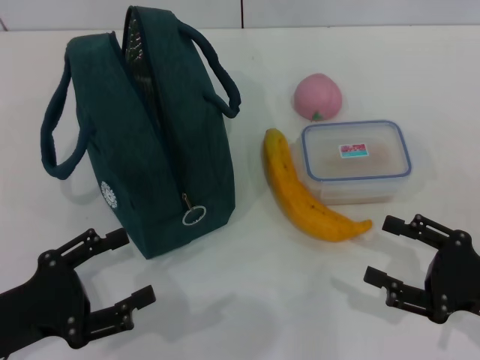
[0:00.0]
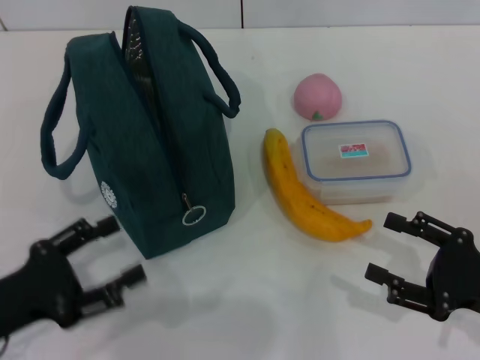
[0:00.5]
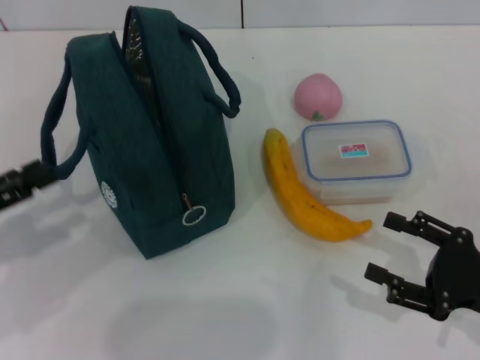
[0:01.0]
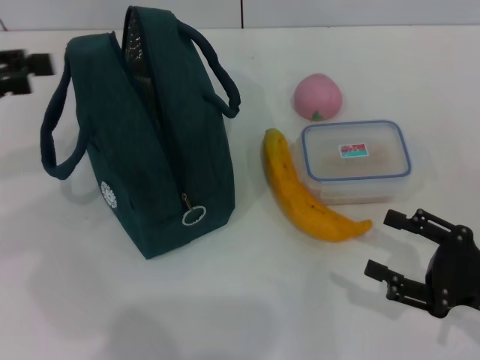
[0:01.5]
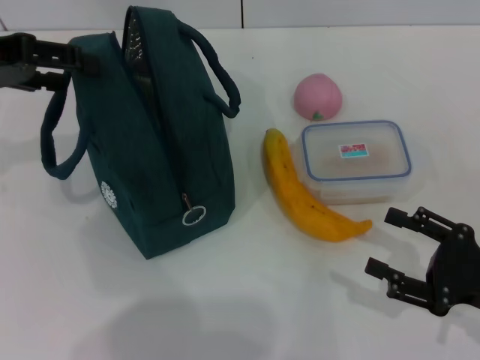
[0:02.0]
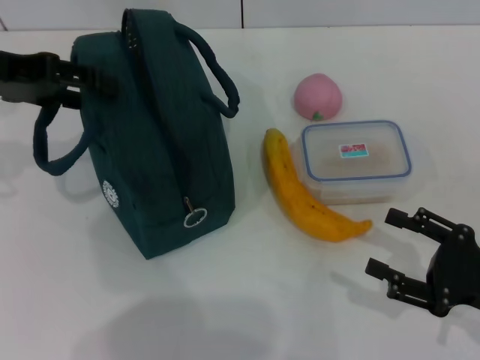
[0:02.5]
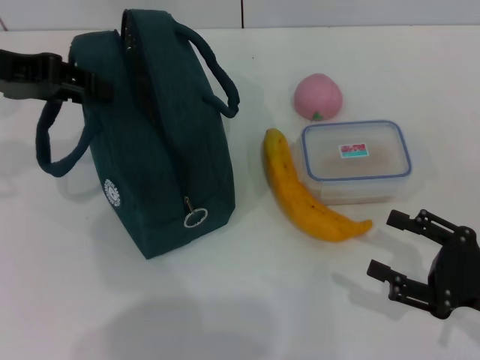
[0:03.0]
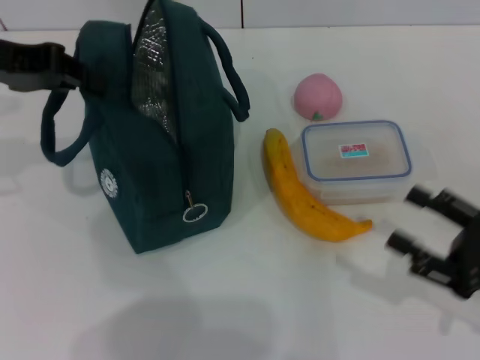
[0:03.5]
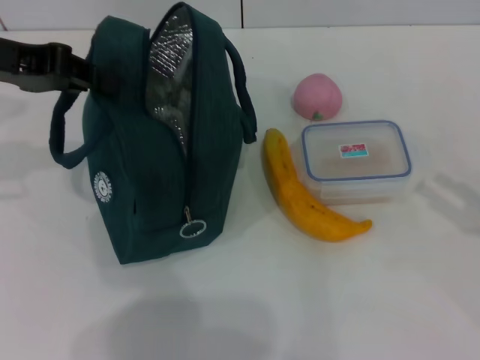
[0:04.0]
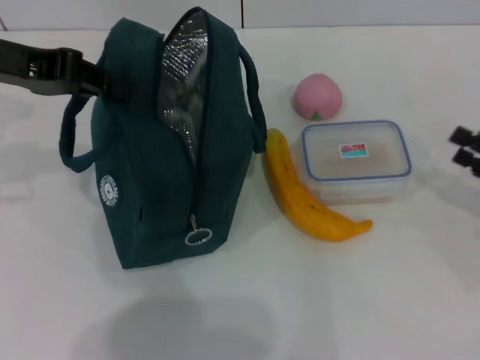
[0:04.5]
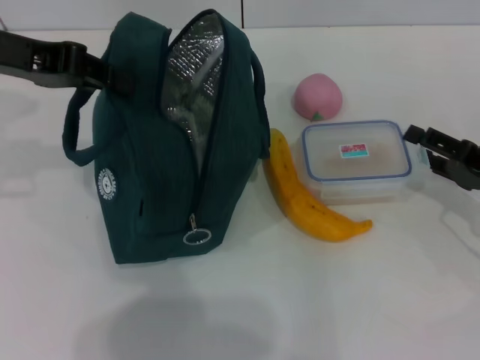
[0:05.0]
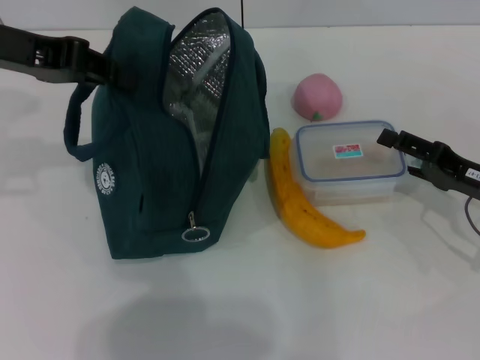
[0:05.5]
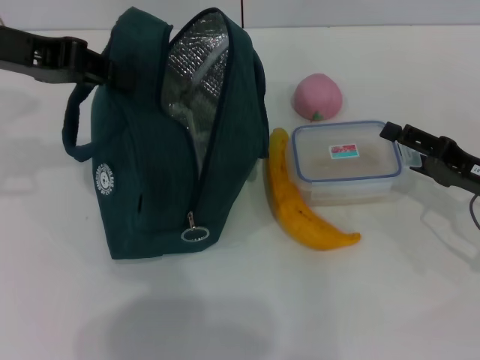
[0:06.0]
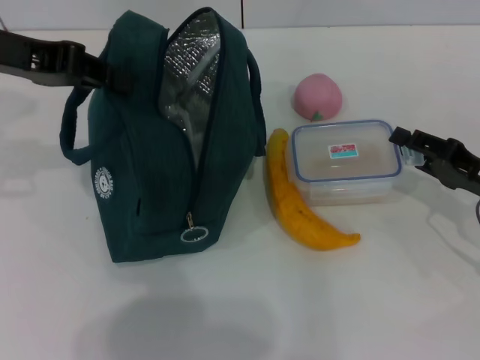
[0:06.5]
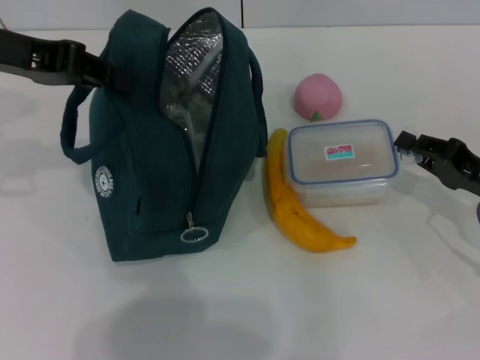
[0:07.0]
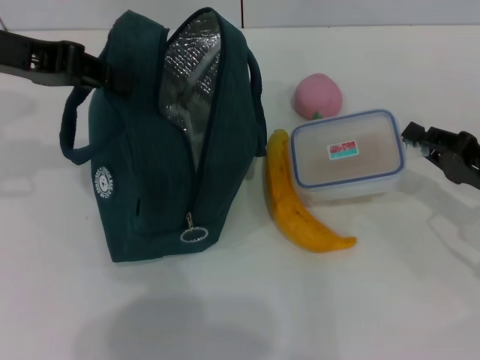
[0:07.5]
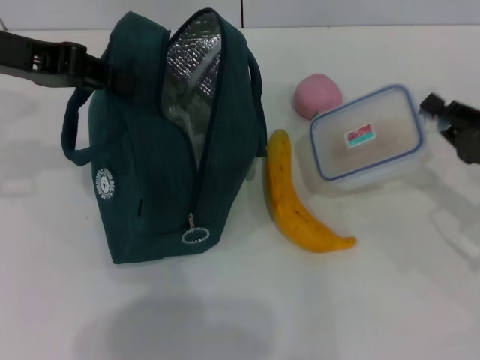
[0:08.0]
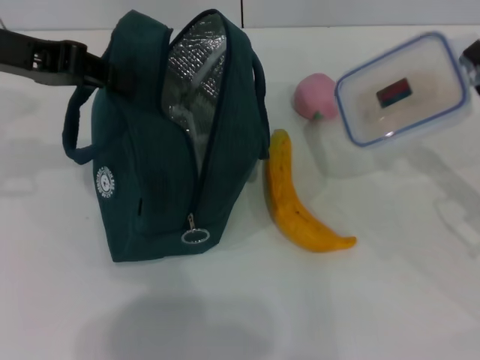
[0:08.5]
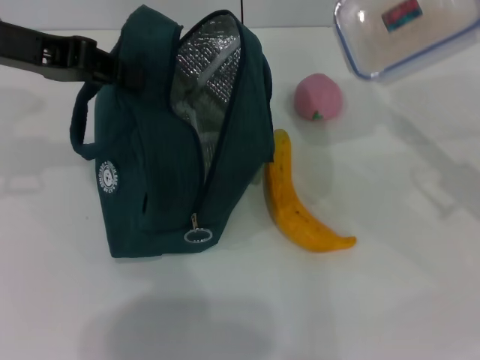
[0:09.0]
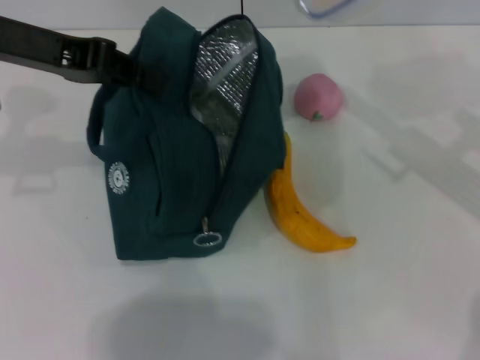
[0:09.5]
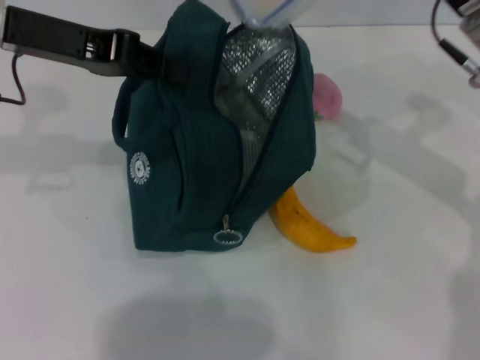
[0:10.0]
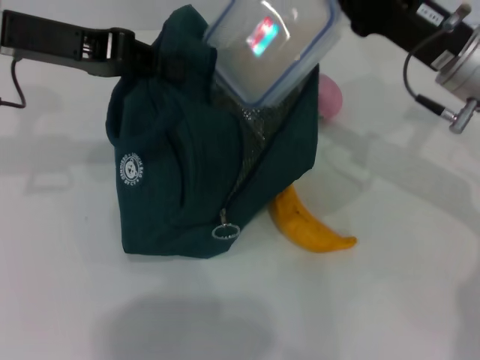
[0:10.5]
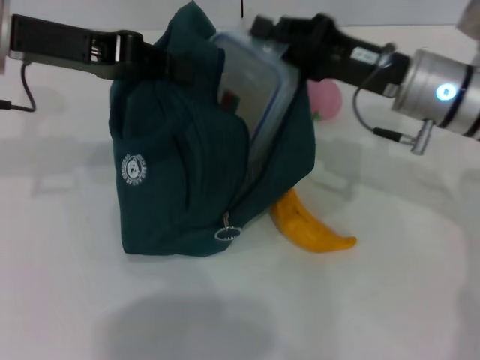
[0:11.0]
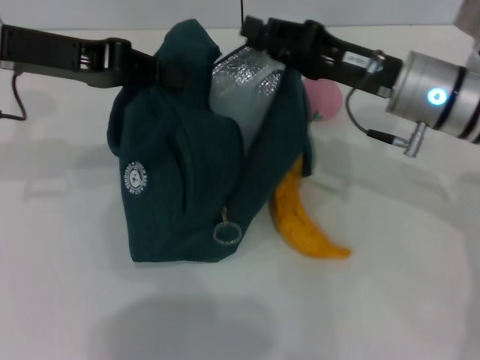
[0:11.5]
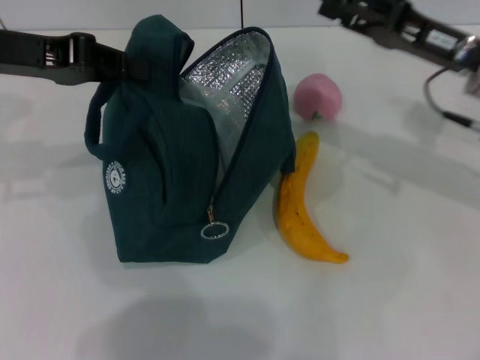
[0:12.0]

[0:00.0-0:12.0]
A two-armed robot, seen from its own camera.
Step, 0:00.0 to 0:03.0: Hold the lunch bag with your left hand.
Step, 0:03.5 to 0:06.5: Pick up the lunch box with your right hand.
Step, 0:07.0 to 0:11.5: Place the lunch box into the lunch bag with your right hand.
0:00.0 to 0:02.0: The left gripper travels upward and forward by roughly 25 cm.
0:02.0 to 0:04.0: The left gripper closes its fingers. The right gripper travels to the right by roughly 10 cm.
0:04.0 to 0:06.0: The right gripper travels forward and to the left by about 10 cm.
0:06.0 to 0:08.0: The right gripper closes its fingers.
0:08.0 to 0:10.0: The right gripper travels upward, to the left and forward by roughly 20 cm.
0:10.0 to 0:12.0: The right gripper opens its fingers.

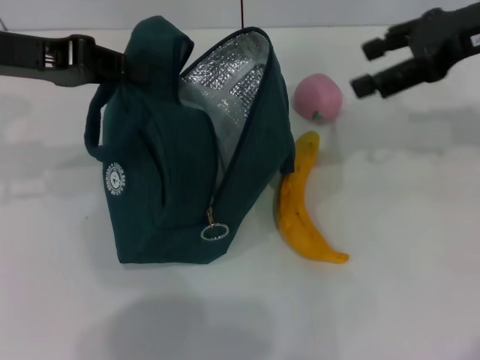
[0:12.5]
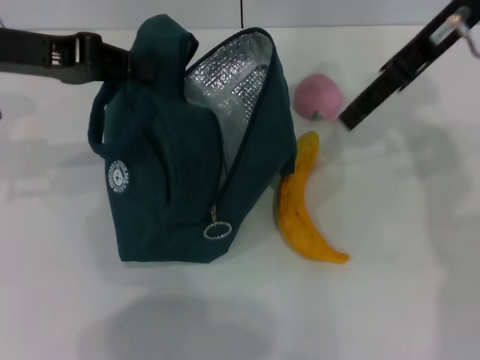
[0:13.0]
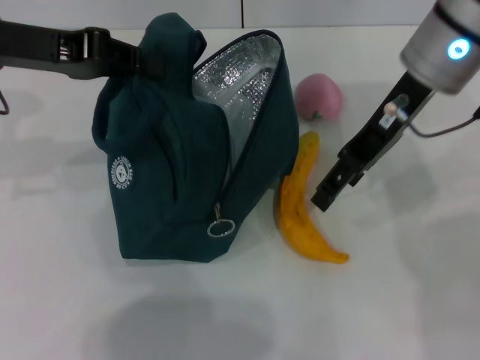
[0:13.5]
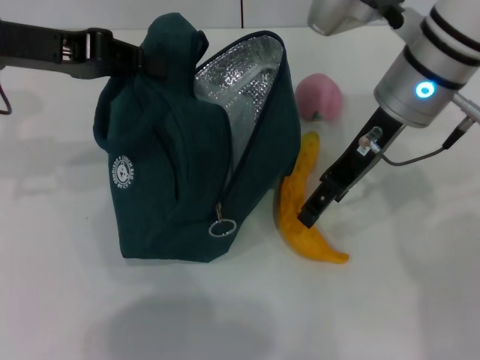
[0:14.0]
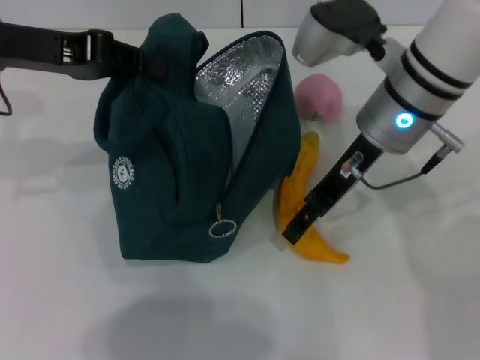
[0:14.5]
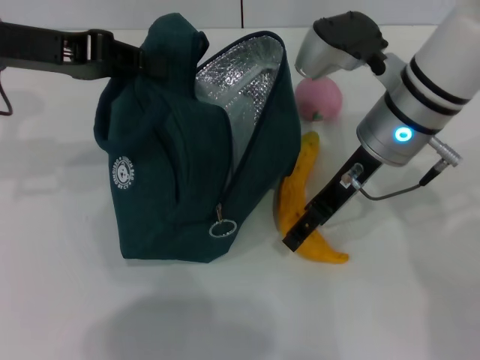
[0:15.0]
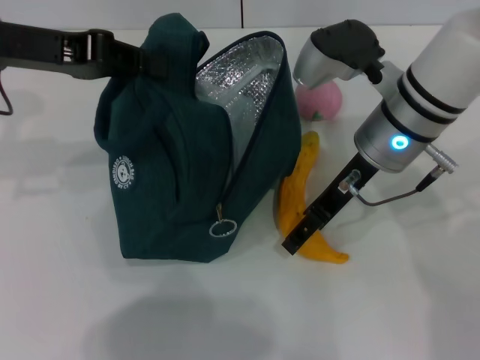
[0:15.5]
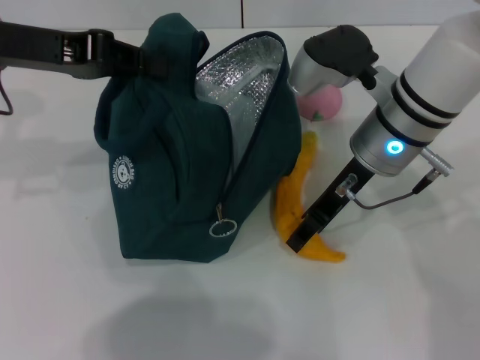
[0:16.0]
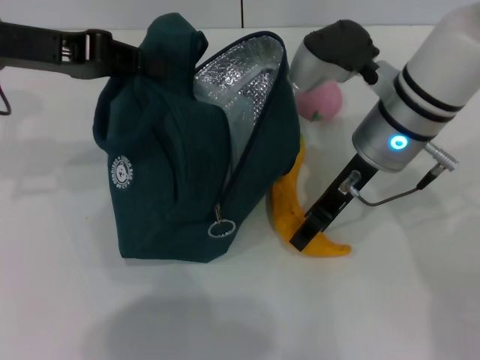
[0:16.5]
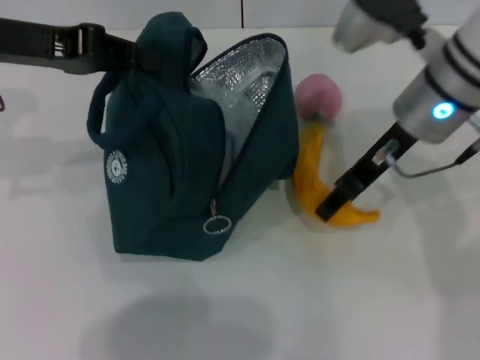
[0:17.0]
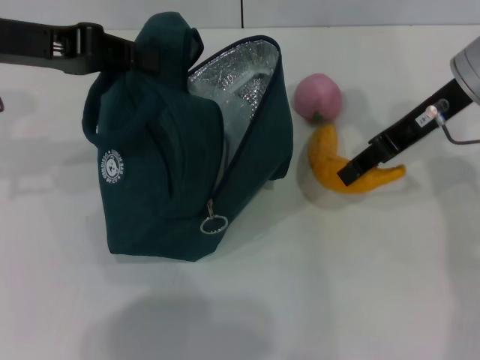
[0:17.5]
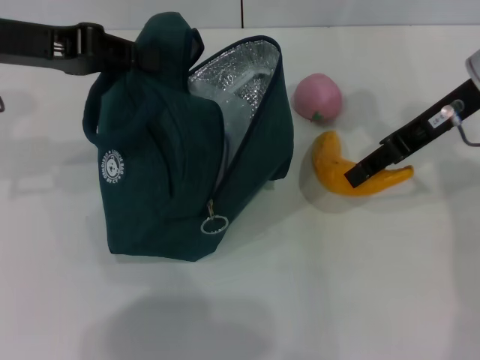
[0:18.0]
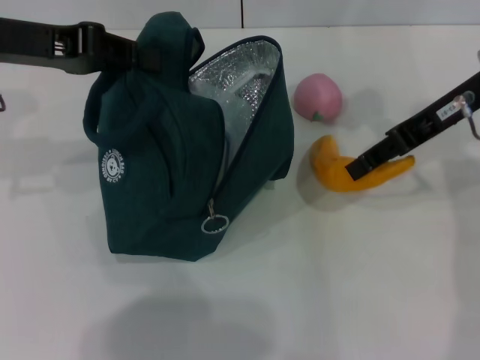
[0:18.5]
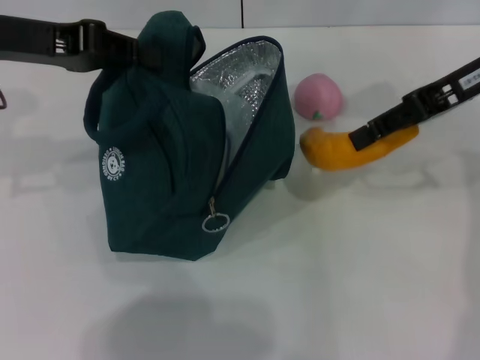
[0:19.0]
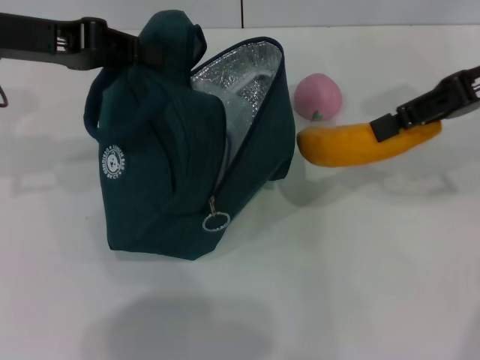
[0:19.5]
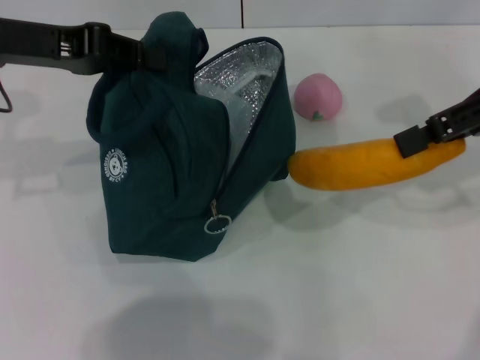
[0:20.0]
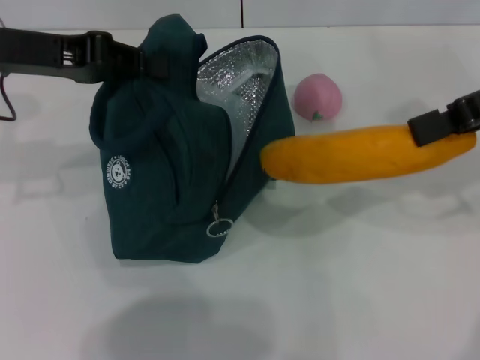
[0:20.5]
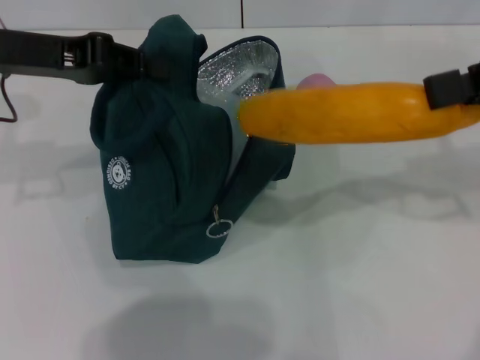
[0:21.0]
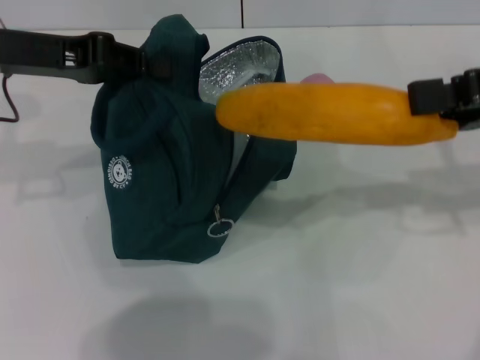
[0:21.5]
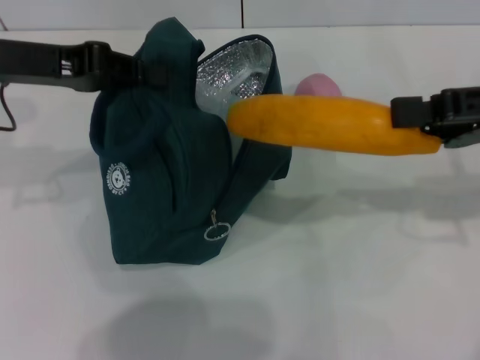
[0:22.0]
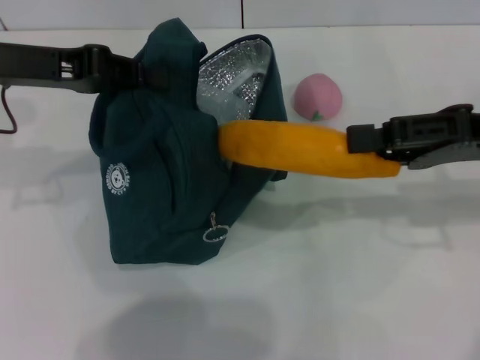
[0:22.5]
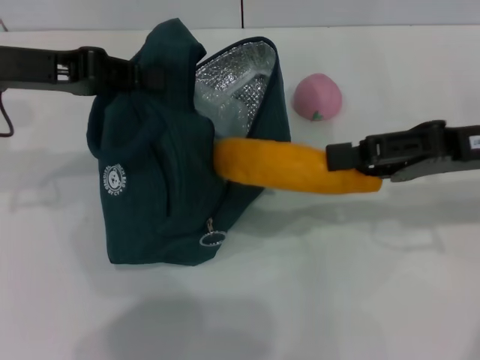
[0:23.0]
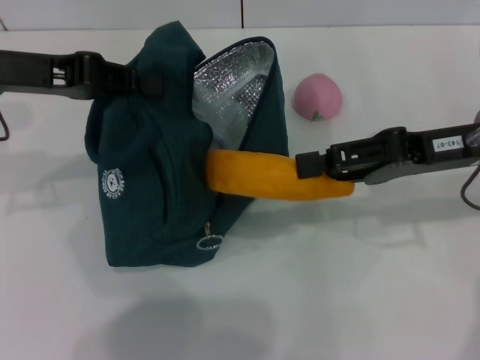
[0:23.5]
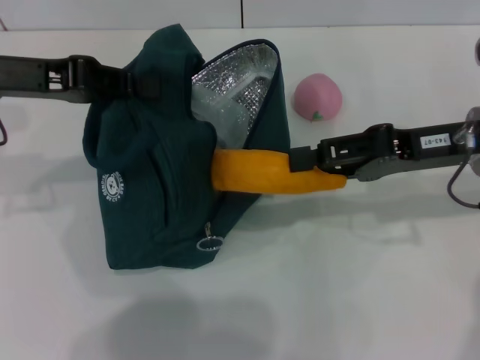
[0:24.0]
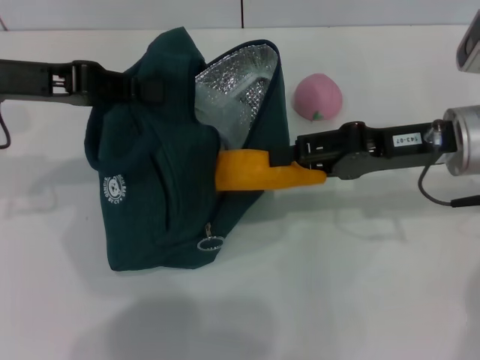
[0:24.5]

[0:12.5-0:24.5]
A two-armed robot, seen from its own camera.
Step, 0:12.5 to 0:16.0: Take the banana with your right hand.
0:12.5 to 0:14.5: The right gripper goes approximately 15 cm to the left and downward.
0:14.5 to 0:16.5: The right gripper closes its fingers.
0:16.5 to 0:18.5: The right gripper heads to the right and upward, covering roughly 10 cm.
0:18.5 to 0:20.5: The right gripper heads to the right, covering some 5 cm.
0:20.5 to 0:22.5: The right gripper moves downward, approximately 10 cm.
0:22.5 to 0:24.5: The right gripper shifts approximately 5 cm to the left.

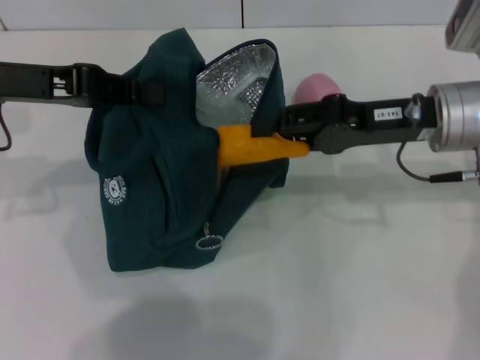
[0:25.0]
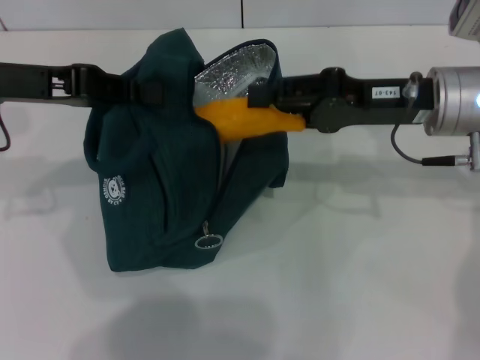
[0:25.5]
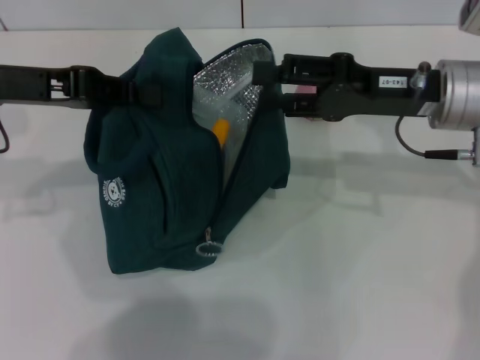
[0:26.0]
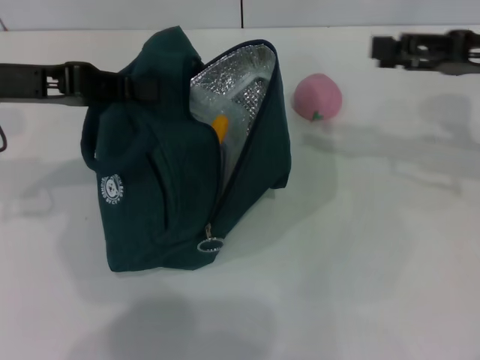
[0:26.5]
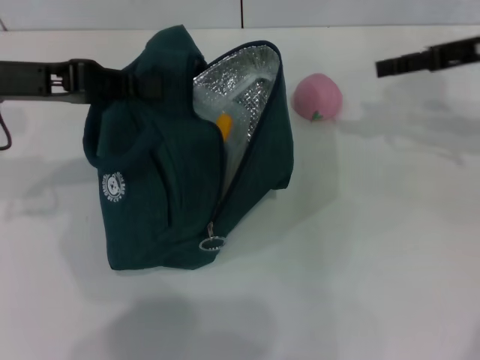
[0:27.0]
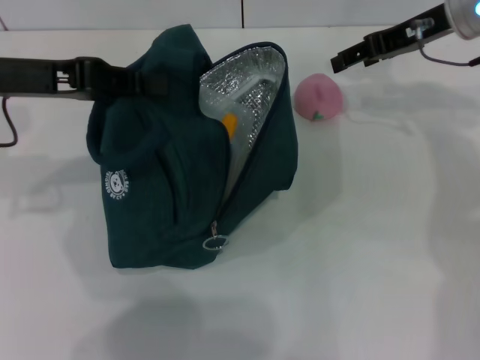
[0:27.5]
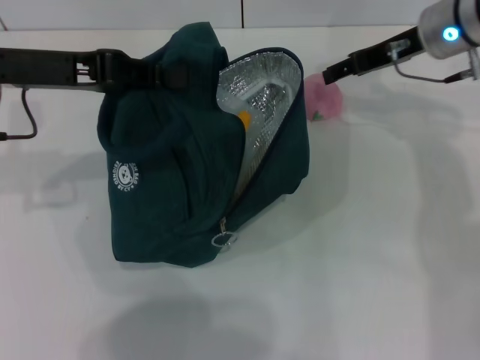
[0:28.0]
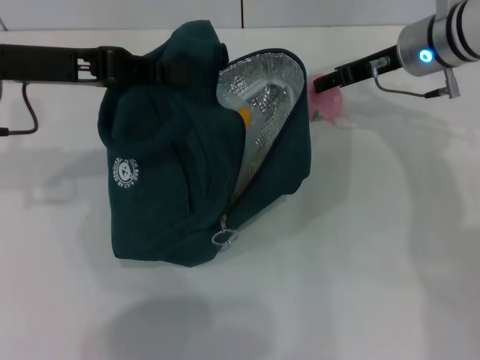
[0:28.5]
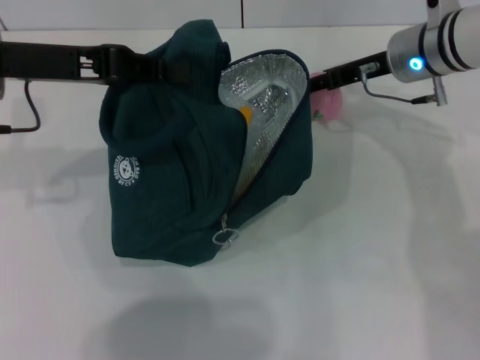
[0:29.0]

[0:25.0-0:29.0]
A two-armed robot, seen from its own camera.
0:25.0 to 0:27.0: The right gripper goes approximately 10 cm to the right, forward and upward.
0:27.0 to 0:29.0: The right gripper moves to the left and downward, some 15 cm.
